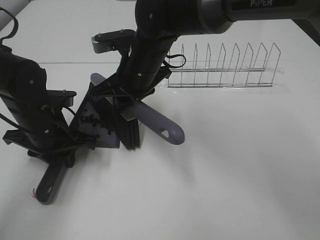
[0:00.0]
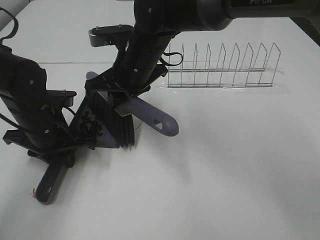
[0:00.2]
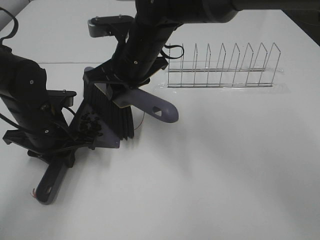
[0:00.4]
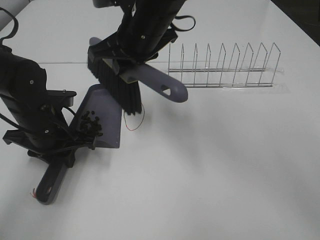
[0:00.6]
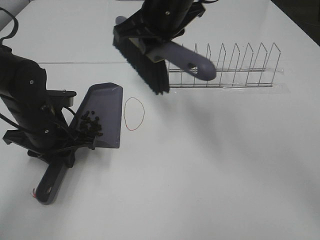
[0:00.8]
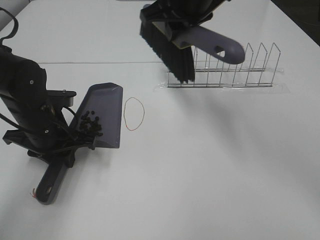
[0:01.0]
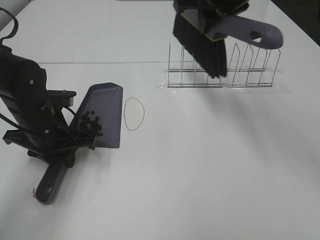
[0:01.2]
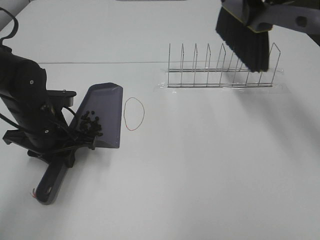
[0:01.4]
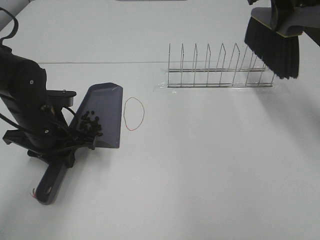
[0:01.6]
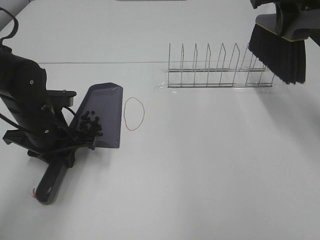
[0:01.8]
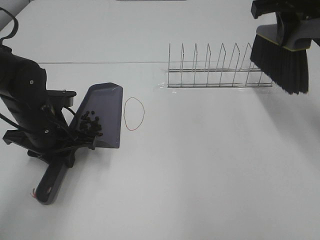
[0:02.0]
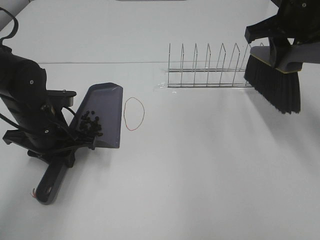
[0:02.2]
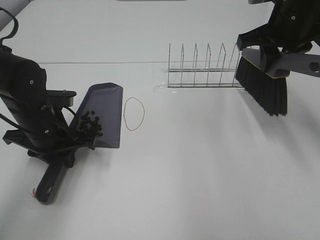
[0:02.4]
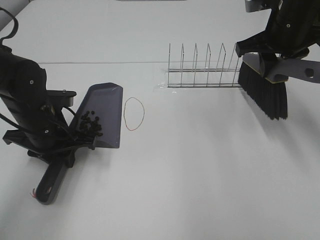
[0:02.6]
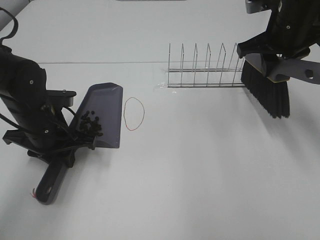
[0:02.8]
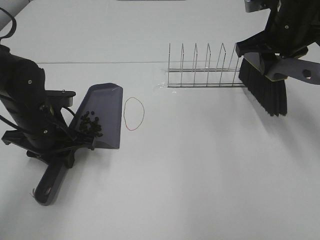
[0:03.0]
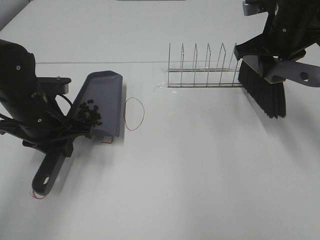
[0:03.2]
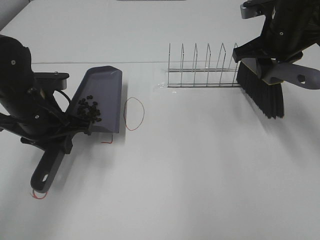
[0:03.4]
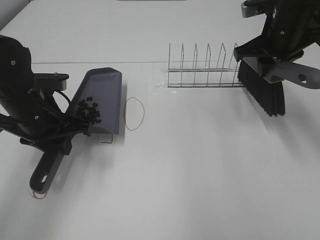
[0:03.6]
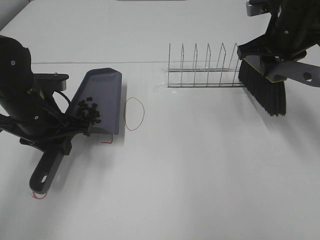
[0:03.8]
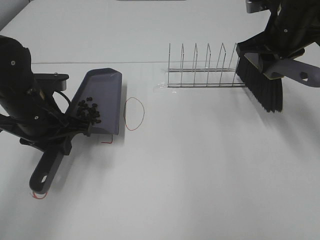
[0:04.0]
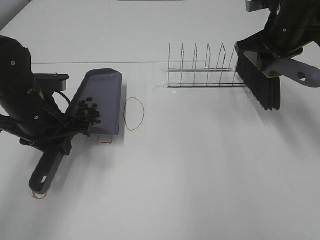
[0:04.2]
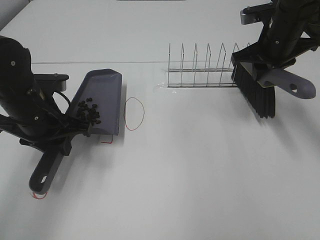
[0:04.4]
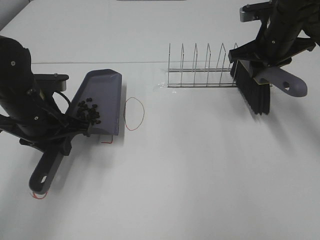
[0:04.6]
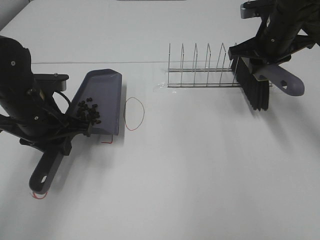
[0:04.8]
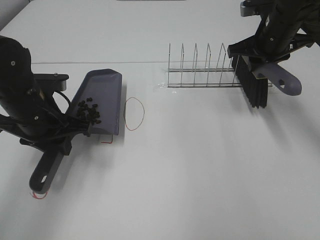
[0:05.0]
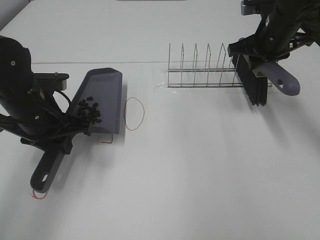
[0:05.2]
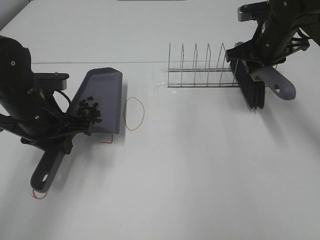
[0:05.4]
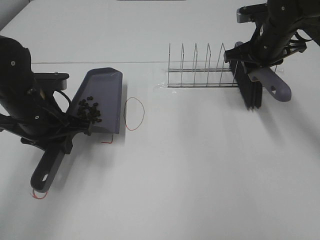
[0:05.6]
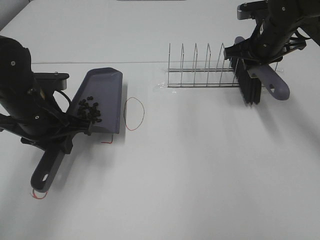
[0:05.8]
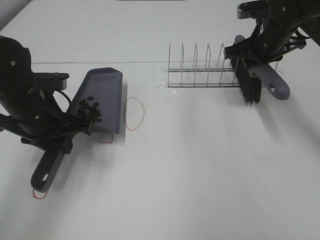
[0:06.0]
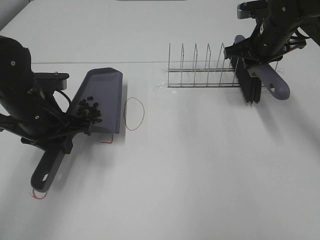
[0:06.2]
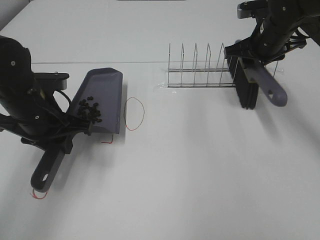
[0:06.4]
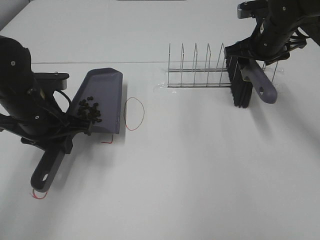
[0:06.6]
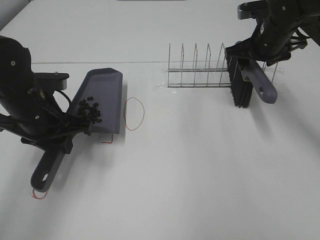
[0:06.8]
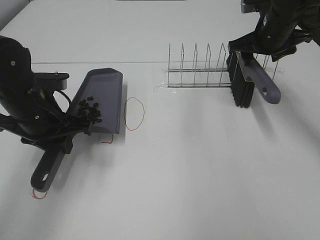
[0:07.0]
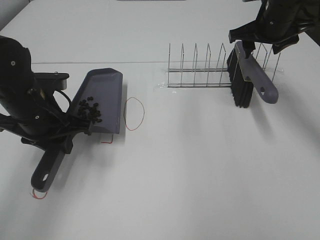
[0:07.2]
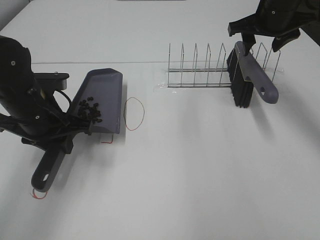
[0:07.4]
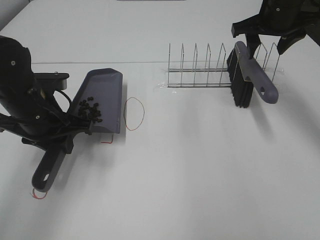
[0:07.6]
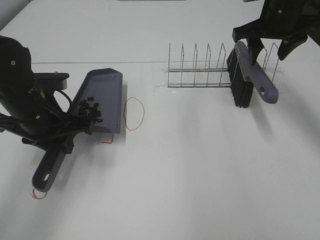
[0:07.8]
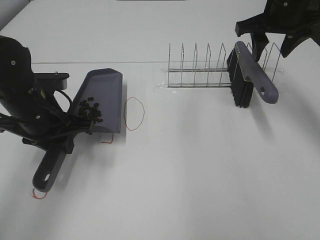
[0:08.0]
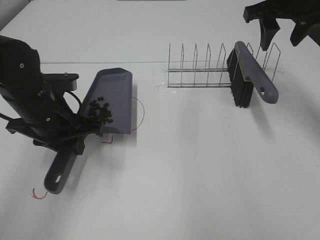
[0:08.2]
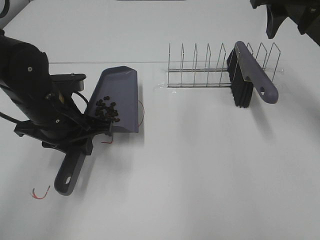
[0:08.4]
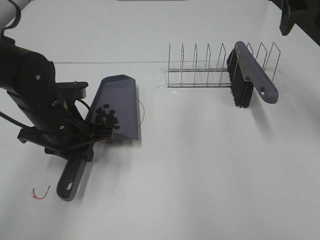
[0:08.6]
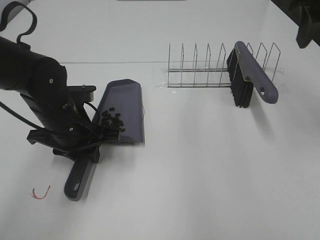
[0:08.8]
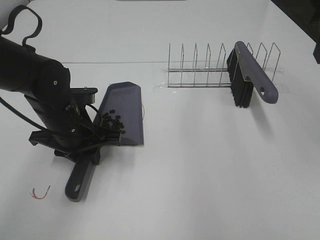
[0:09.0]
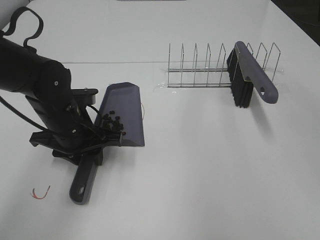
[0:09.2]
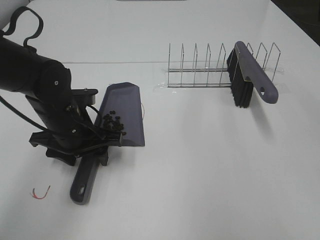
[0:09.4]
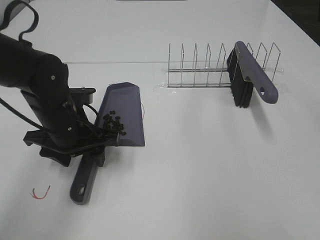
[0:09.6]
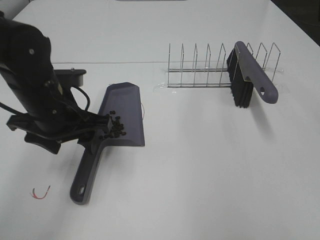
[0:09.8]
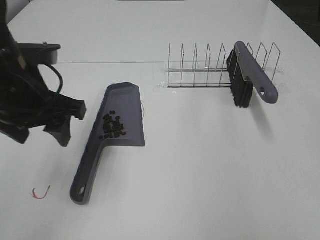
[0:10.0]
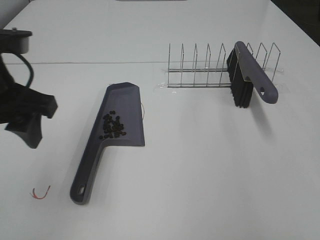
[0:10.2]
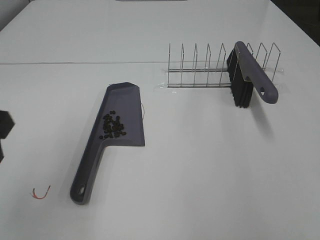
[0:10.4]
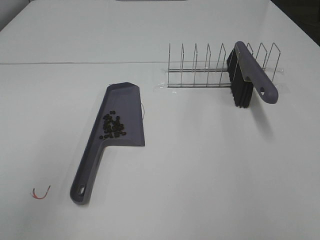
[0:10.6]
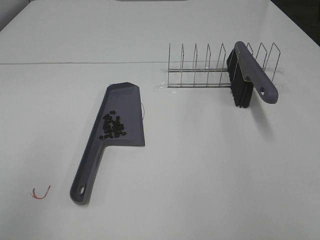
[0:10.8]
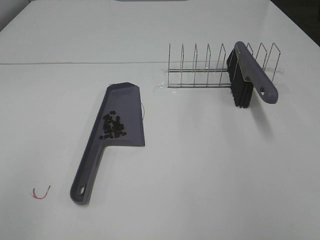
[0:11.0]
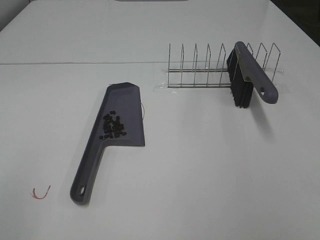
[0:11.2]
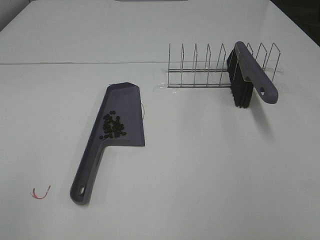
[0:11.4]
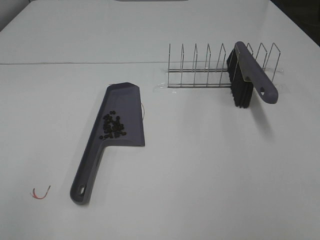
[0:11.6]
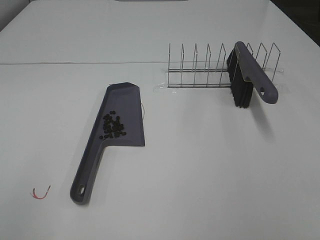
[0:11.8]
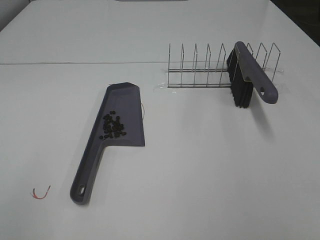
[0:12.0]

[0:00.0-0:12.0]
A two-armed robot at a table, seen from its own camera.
Task of the whole recording: Sweep Coffee Bean.
Step, 0:00.8 to 0:07.0: Right hand:place the broom on the rack.
Step, 0:07.2 to 0:09.6: Left hand:place the dustpan on the table.
0:00.0 to 0:01.6: The right gripper goes roughly 30 cm to the right and upward.
0:01.6 to 0:03.0: The right gripper travels downward by some 10 cm.
0:03.0 to 0:04.4: The grippers make only small movements.
0:04.4 to 0:06.0: There are only small adjustments of the grippers.
0:06.0 to 0:07.6: The right gripper travels upward by about 5 cm, and opens up.
0:07.6 to 0:09.0: The left gripper shifts by approximately 5 cm. The right gripper moves backward and upward, some 20 cm.
0:09.0 to 0:10.4: The left gripper is displaced upward, backward and to the left by about 20 cm, and opens up, while the right gripper heads backward, covering roughly 20 cm.
0:10.4 to 0:12.0: The left gripper shifts some 20 cm backward and to the left.
